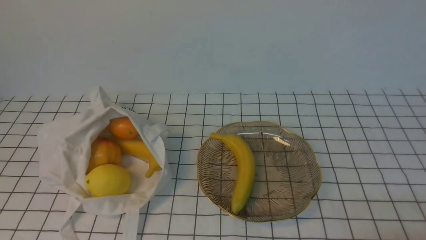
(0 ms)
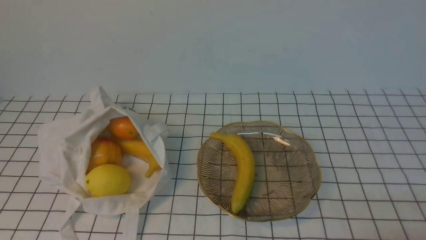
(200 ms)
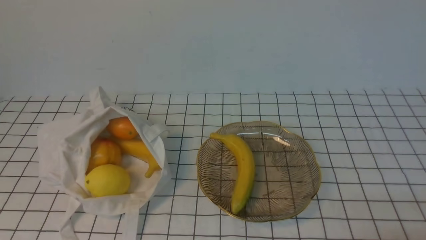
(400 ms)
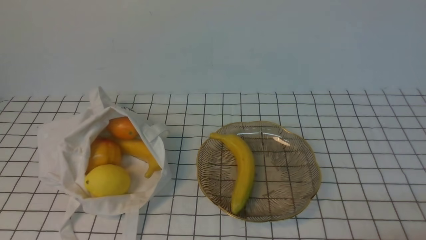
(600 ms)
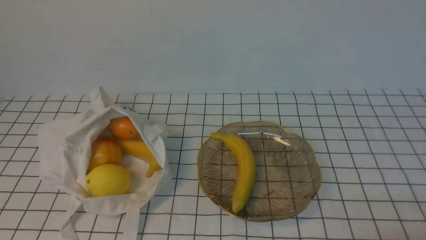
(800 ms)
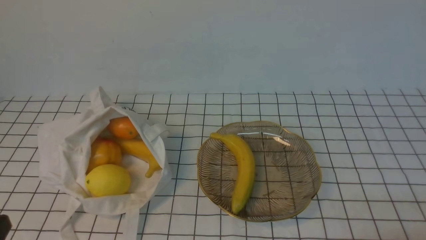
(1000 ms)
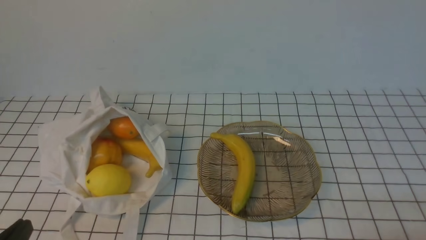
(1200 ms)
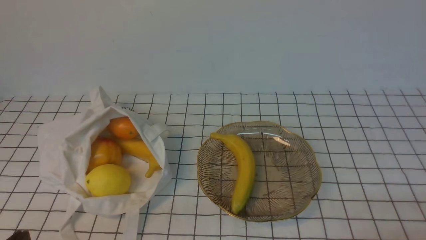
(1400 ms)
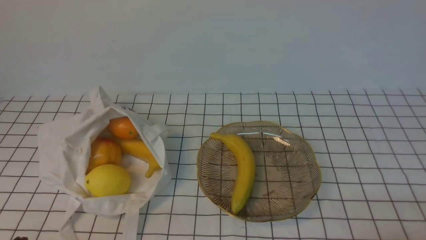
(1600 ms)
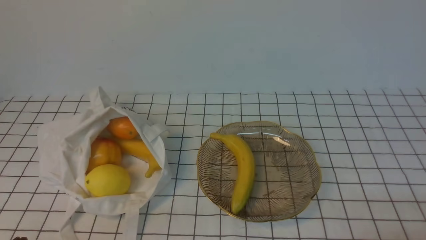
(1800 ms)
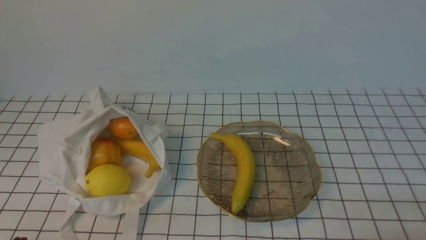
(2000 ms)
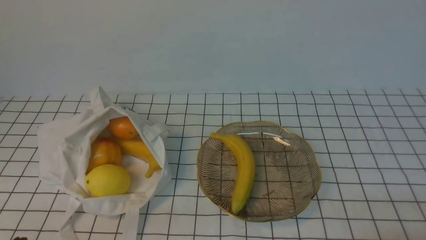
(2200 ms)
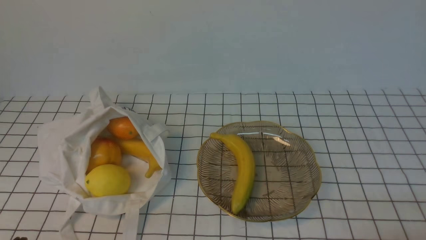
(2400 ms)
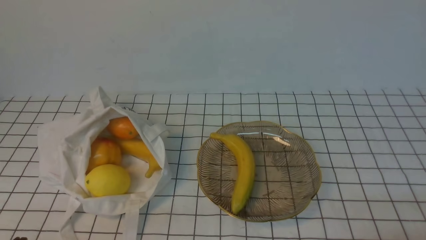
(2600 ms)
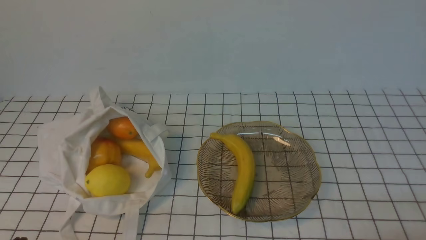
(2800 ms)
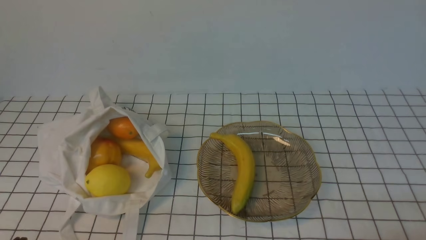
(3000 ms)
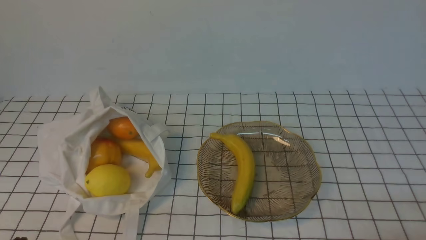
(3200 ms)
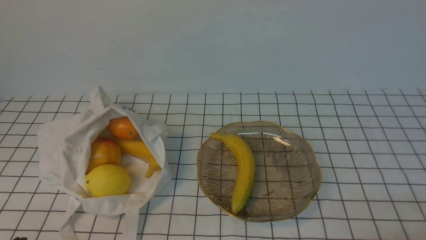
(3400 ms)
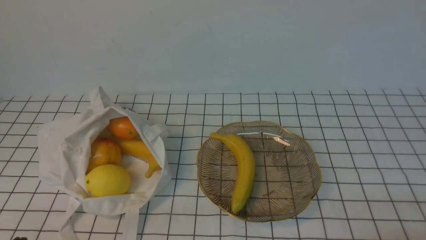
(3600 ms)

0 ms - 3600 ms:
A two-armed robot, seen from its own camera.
1800 ms - 3600 ms: Neither gripper changes place.

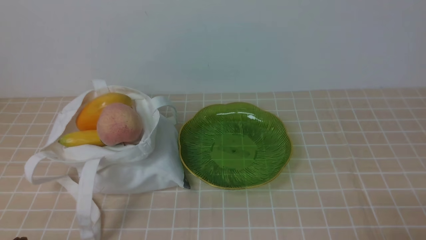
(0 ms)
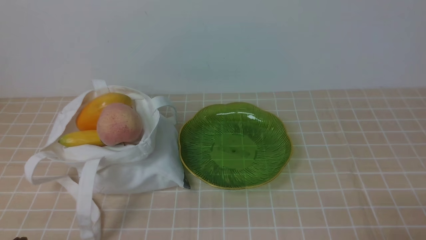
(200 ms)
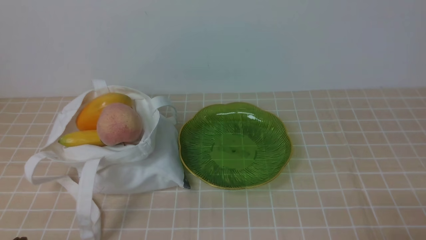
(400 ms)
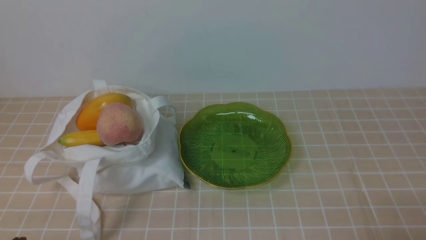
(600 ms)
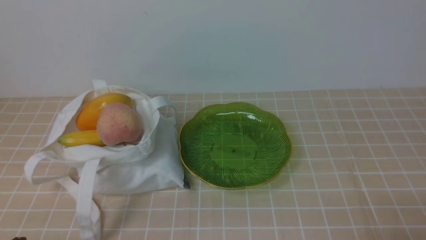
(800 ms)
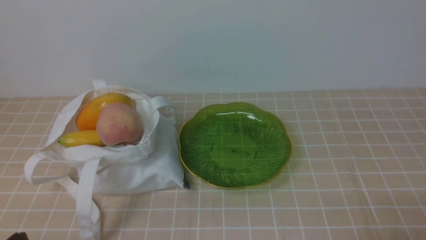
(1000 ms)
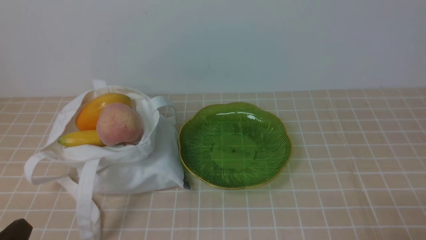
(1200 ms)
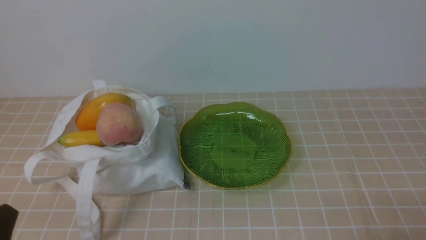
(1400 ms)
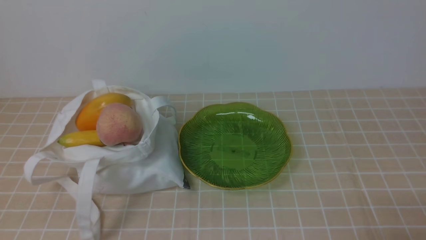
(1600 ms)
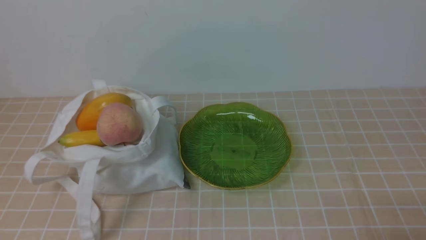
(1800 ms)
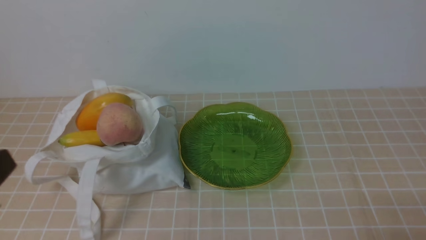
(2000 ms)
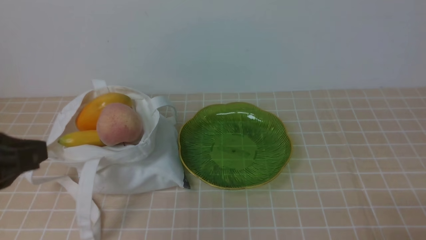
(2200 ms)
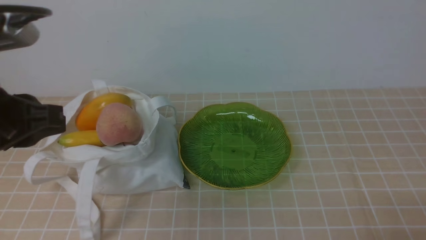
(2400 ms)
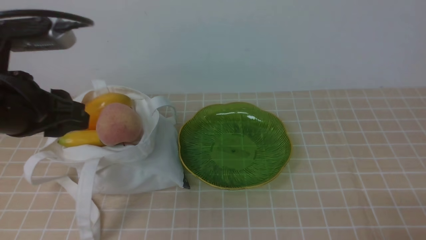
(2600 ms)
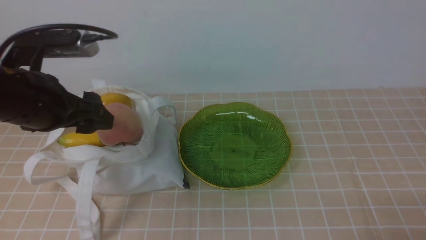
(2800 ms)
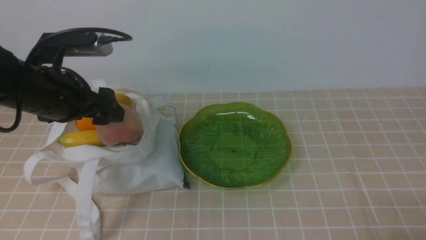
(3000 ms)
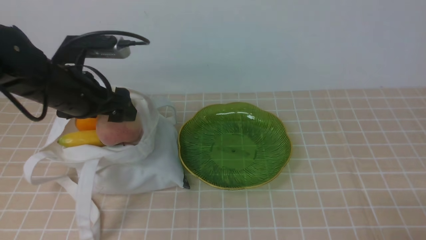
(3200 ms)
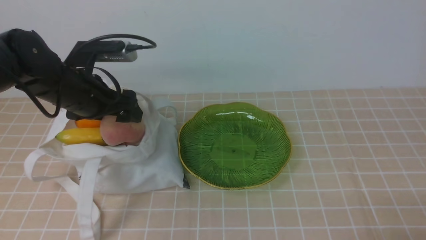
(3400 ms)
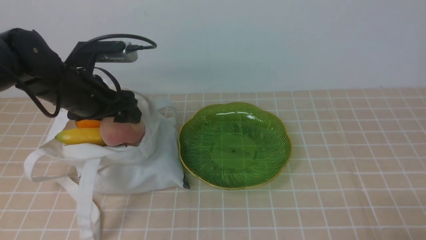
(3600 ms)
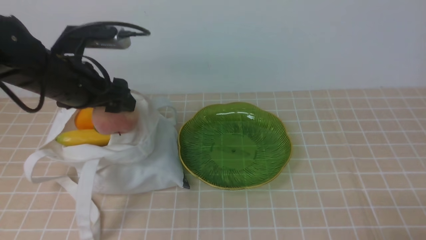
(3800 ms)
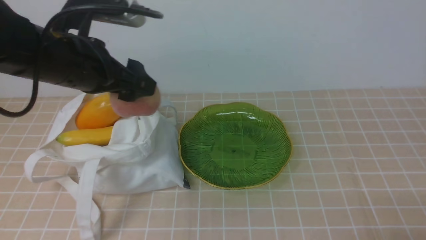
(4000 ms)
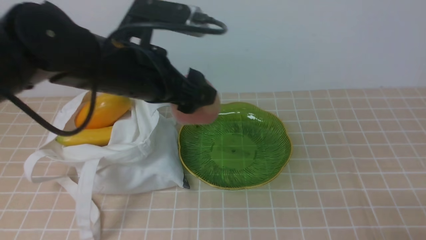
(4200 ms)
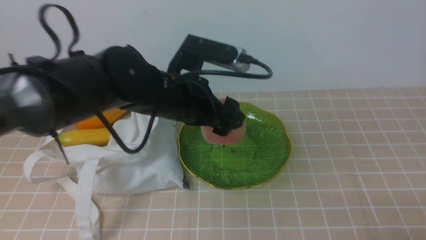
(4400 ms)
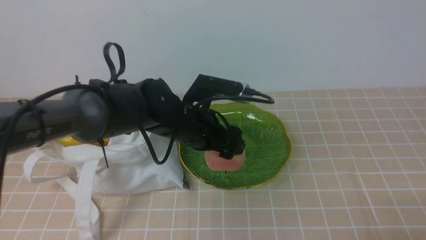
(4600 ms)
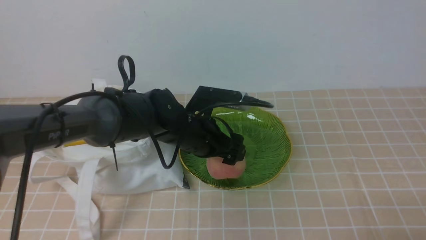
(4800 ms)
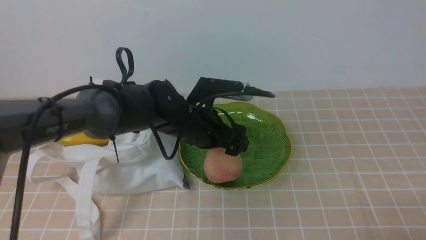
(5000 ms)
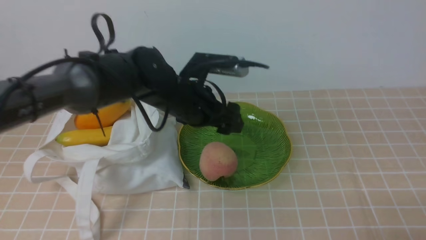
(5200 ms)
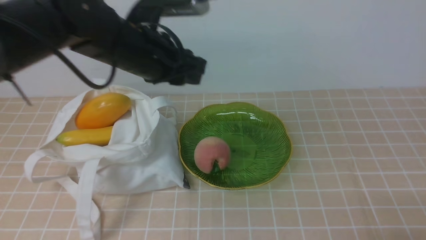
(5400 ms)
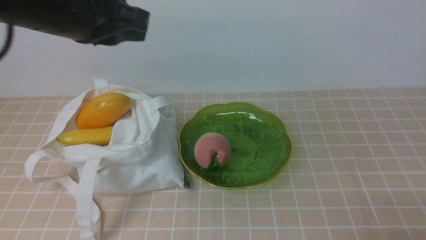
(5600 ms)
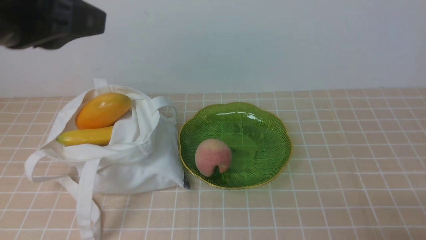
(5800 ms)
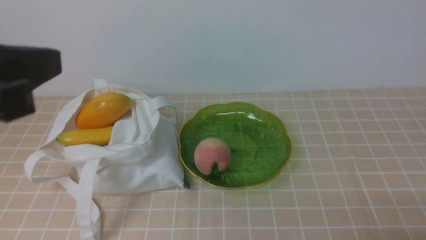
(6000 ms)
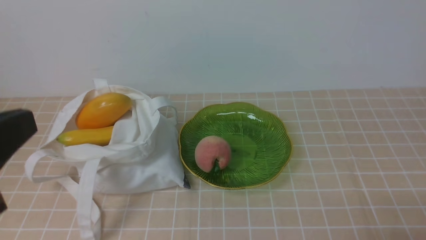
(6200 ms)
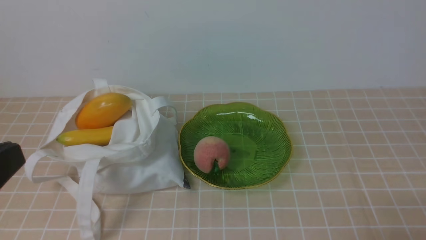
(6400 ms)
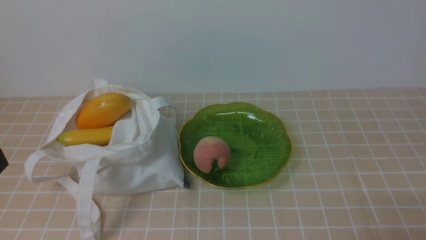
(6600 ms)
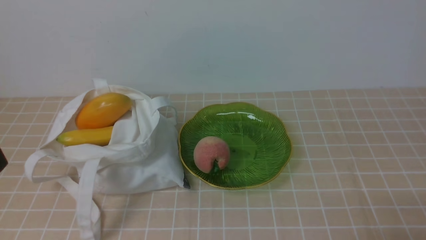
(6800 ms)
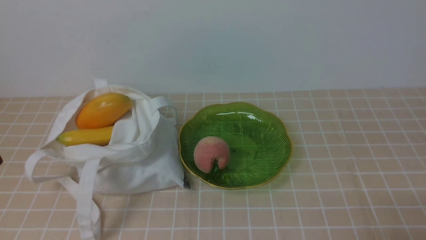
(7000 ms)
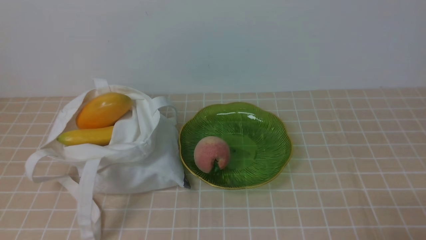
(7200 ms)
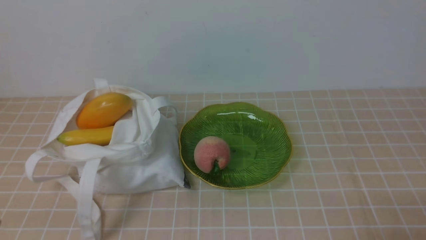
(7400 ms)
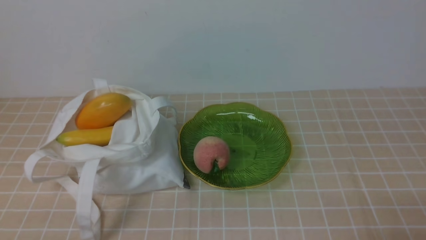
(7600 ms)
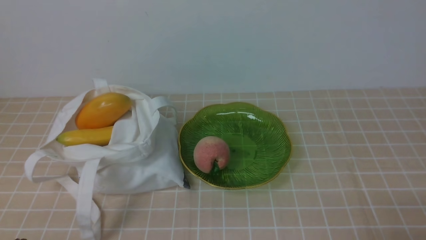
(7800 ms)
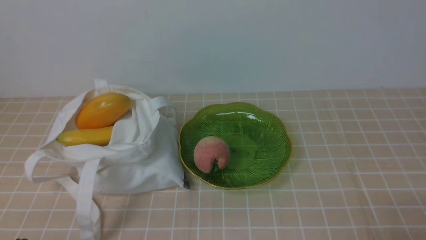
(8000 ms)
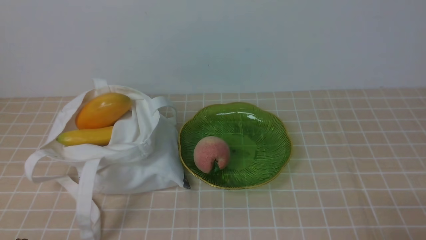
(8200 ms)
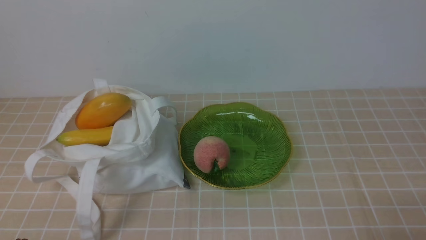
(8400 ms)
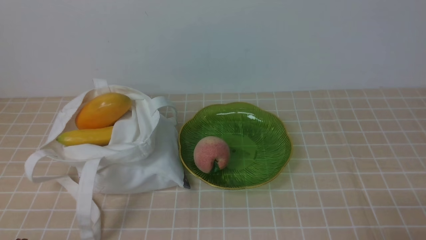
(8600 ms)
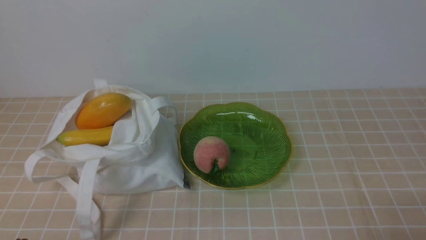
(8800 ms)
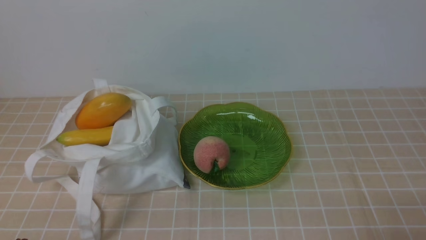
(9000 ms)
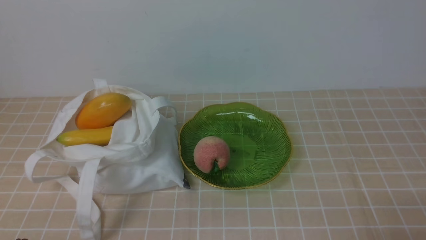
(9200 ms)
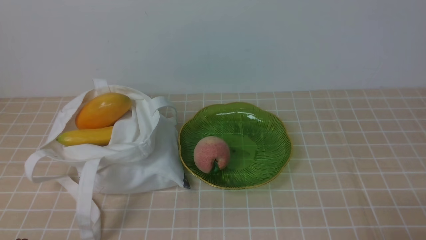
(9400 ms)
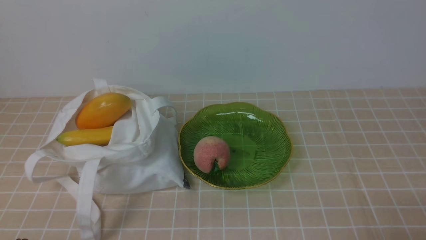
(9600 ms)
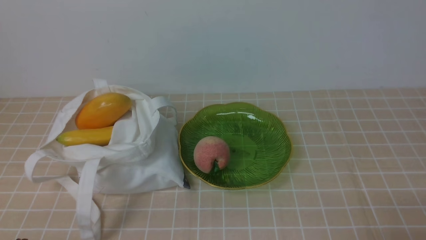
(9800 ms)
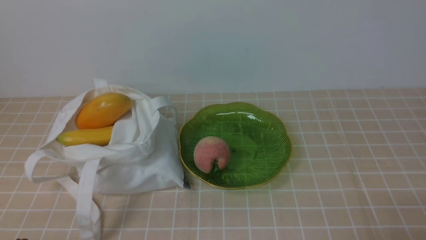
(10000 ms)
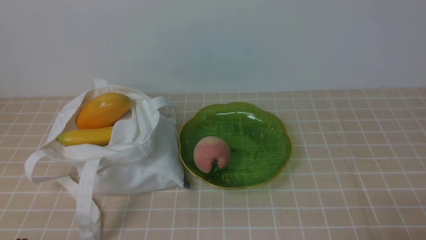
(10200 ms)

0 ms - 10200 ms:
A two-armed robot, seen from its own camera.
Step, 0 ms - 3600 ms: use the left arm to grab a peach from the bag.
Step, 4000 ms - 5000 ms: use the left arm to put the peach into the empty plate on the right.
1400 ms - 3000 ms: The left gripper is displaced forward and upward by about 25 cm, and opens up.
3000 ms - 4400 ms: The left gripper goes some 15 cm to the right.
4400 ms - 5800 ms: The left gripper moves upward, to the left and backward, some 20 cm, and closes.
5800 ms - 7200 ms: The left gripper goes roughly 20 cm backward and downward.
8800 ms - 10200 ms: Both grippers stay about where they are.

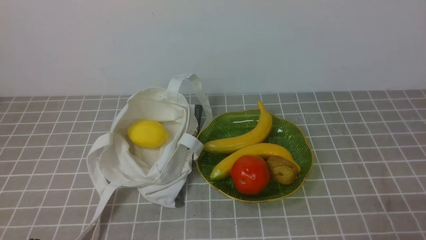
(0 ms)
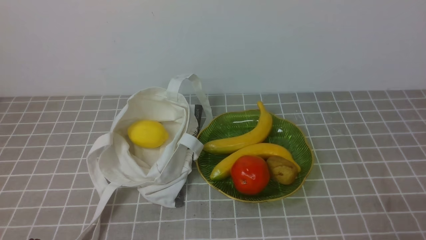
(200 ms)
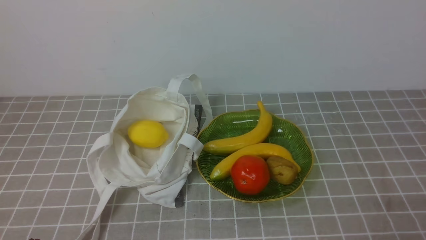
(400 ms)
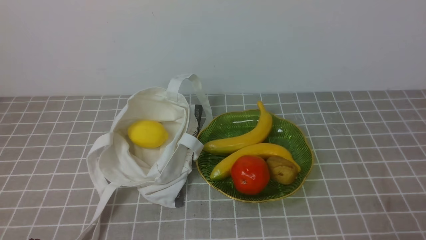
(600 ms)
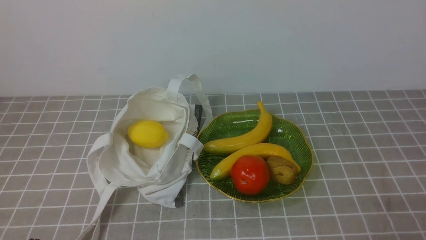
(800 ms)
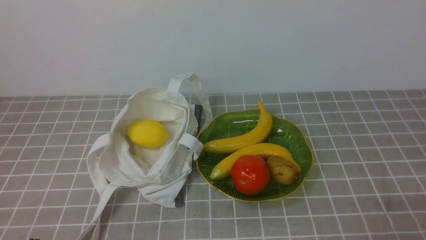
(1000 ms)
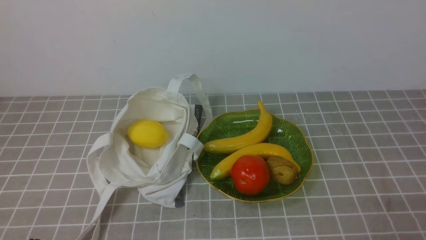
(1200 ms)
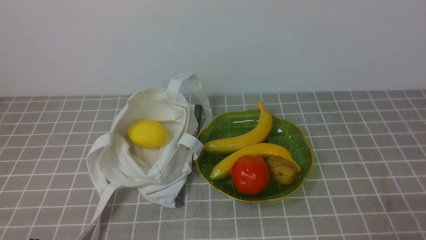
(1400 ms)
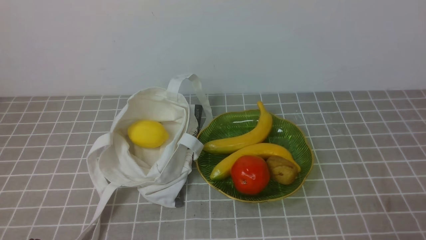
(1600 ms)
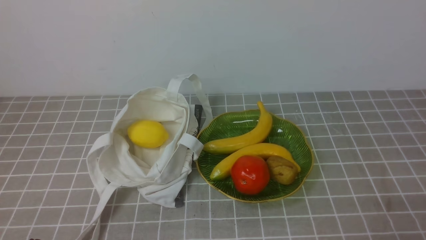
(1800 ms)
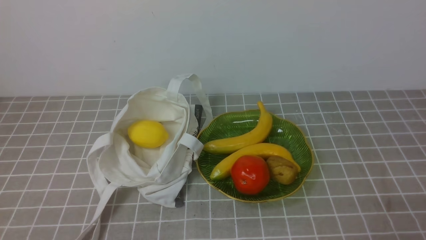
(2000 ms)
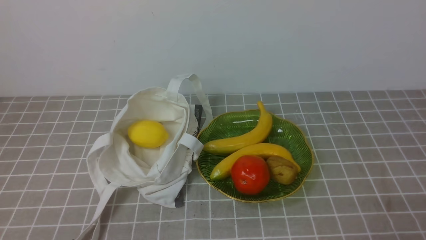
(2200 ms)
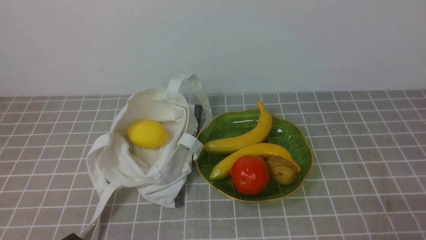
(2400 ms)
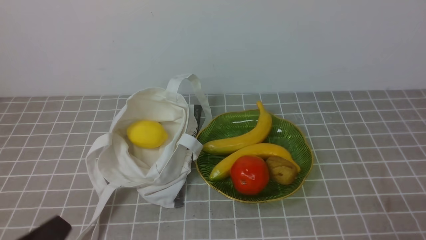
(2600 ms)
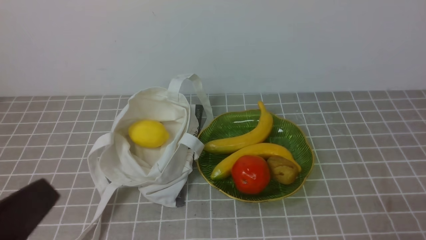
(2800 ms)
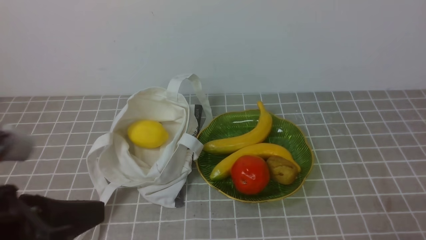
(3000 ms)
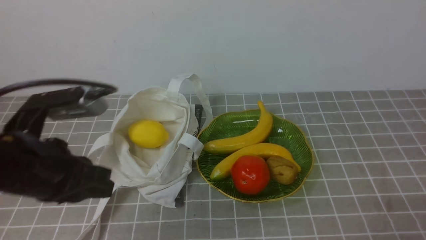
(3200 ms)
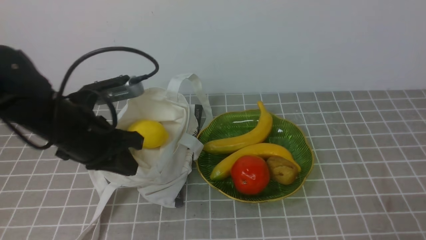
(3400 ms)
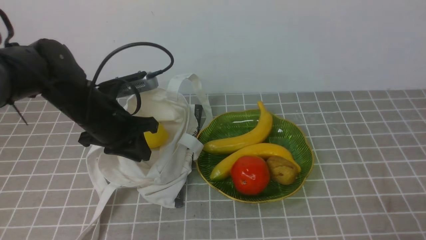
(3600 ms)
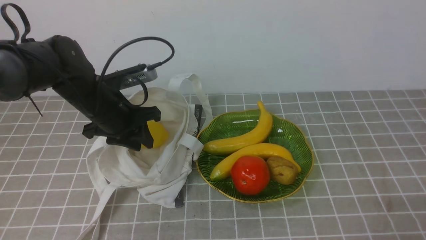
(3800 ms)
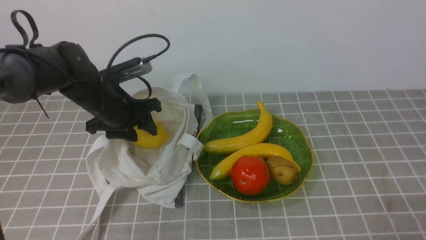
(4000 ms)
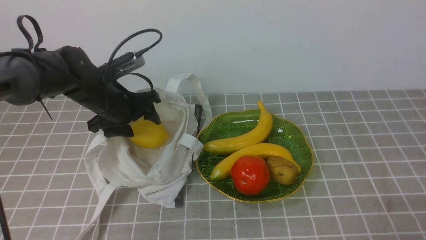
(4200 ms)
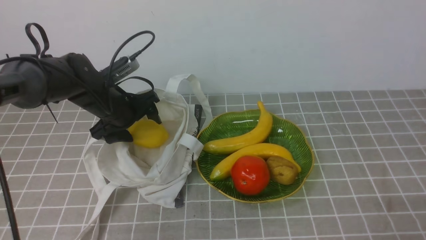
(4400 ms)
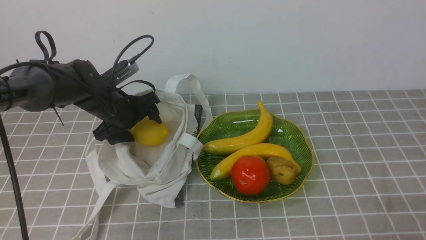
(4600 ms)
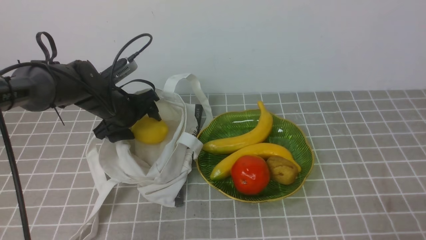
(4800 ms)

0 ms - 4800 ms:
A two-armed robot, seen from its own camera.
1600 ms - 3200 ms: The left gripper moves upward and forward, about 20 cm.
3200 ms - 4800 ms: The left gripper travels forward and downward by approximately 30 cm, and opens its fingers.
